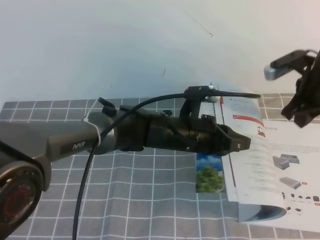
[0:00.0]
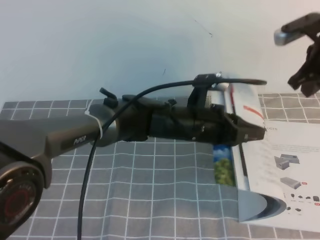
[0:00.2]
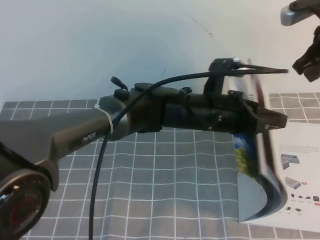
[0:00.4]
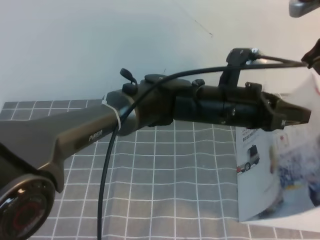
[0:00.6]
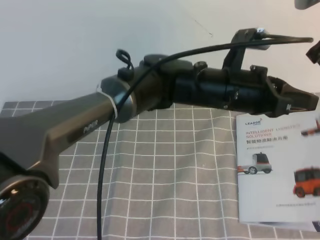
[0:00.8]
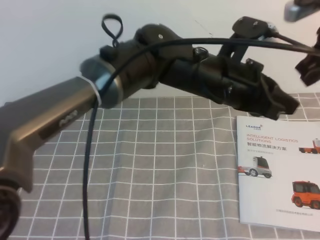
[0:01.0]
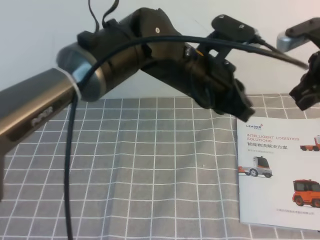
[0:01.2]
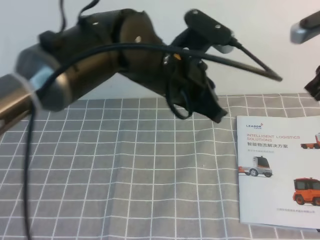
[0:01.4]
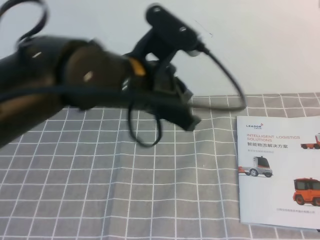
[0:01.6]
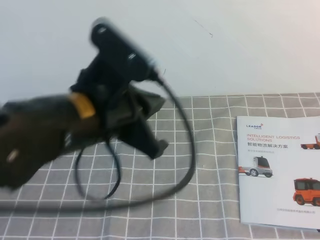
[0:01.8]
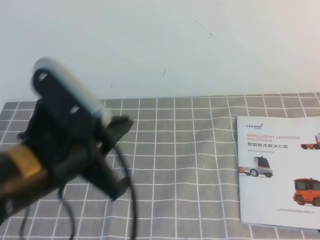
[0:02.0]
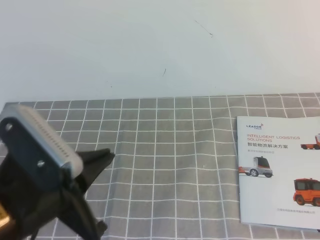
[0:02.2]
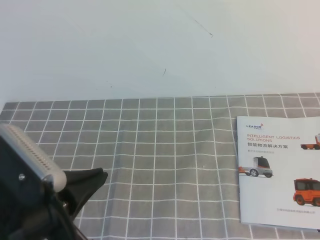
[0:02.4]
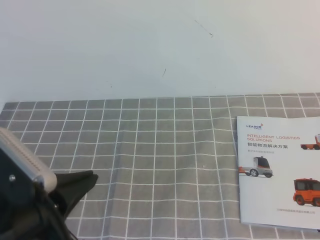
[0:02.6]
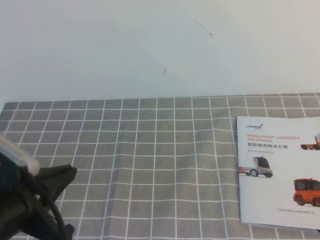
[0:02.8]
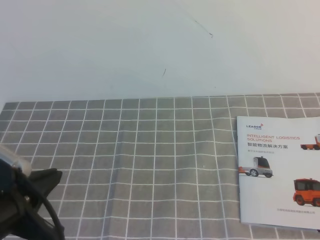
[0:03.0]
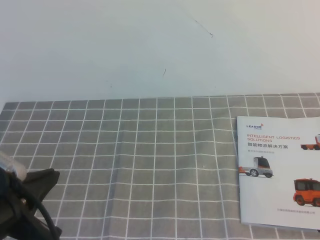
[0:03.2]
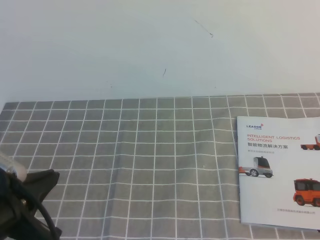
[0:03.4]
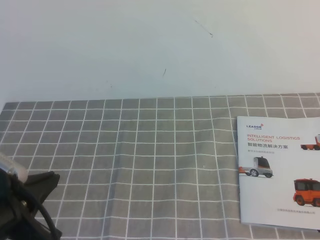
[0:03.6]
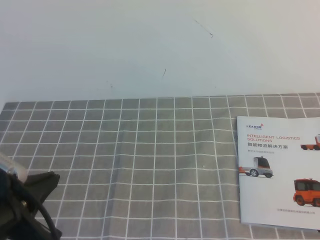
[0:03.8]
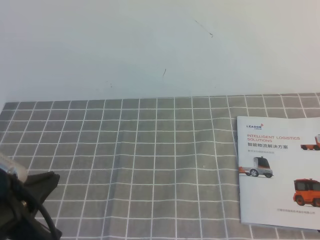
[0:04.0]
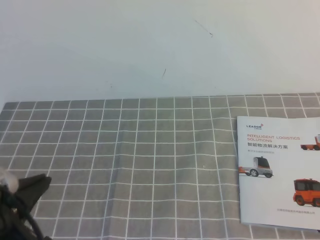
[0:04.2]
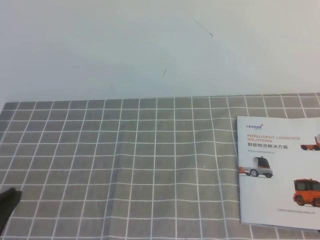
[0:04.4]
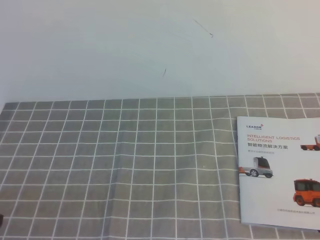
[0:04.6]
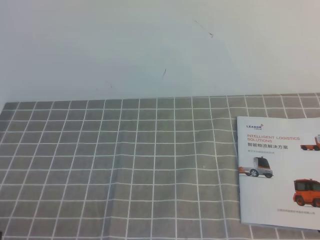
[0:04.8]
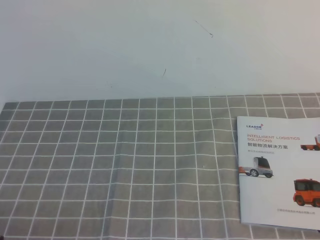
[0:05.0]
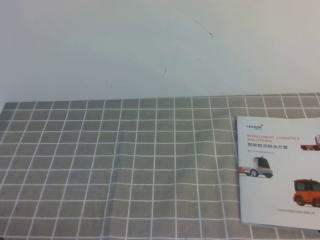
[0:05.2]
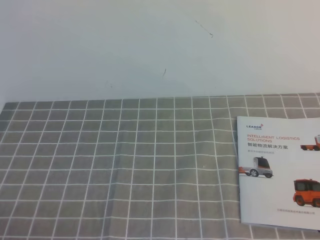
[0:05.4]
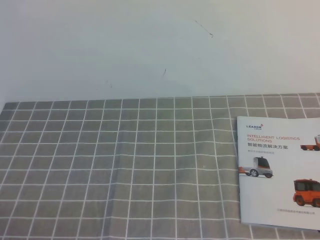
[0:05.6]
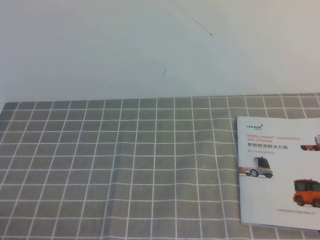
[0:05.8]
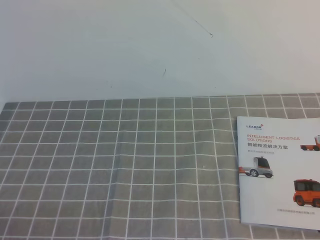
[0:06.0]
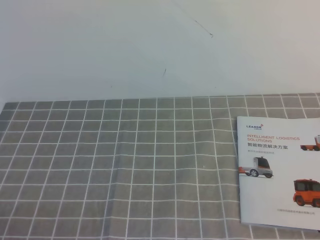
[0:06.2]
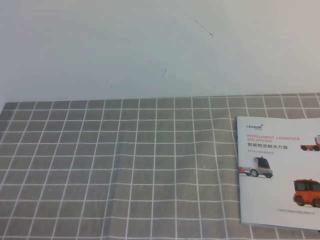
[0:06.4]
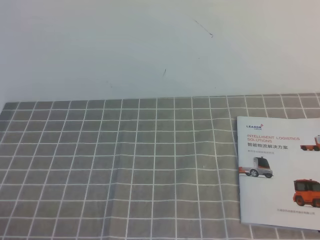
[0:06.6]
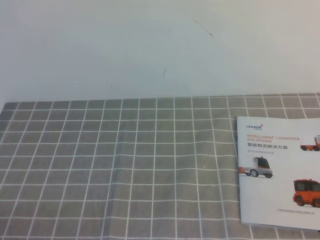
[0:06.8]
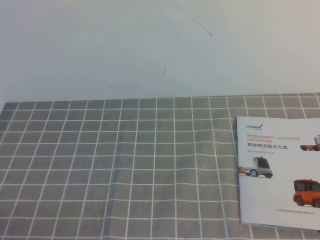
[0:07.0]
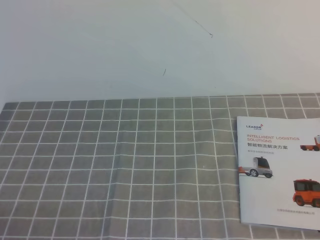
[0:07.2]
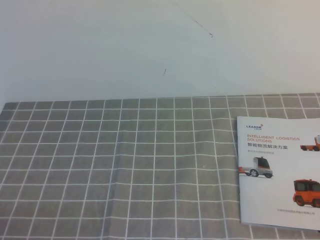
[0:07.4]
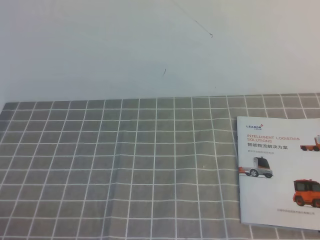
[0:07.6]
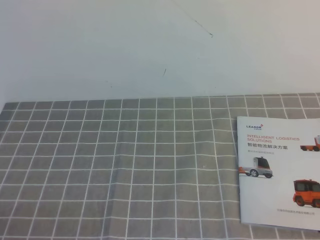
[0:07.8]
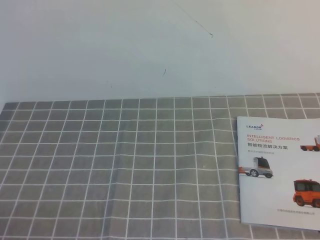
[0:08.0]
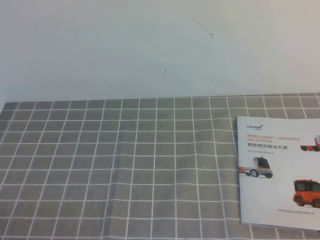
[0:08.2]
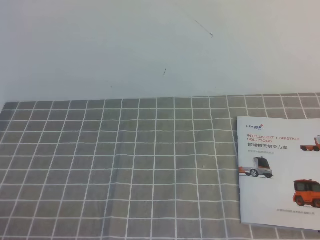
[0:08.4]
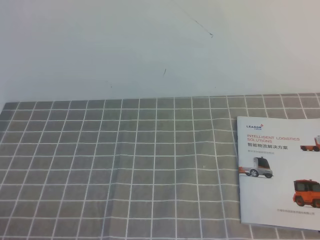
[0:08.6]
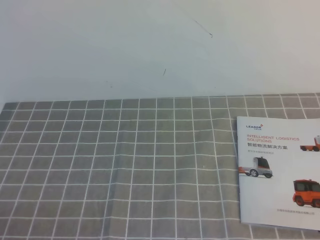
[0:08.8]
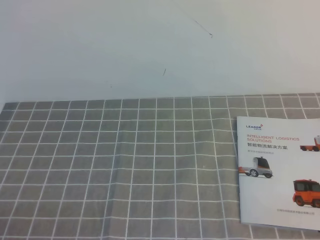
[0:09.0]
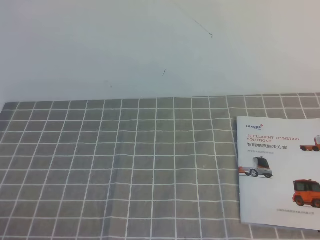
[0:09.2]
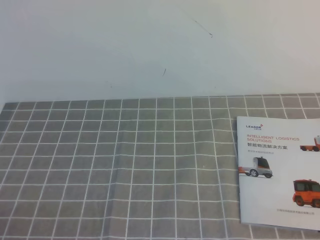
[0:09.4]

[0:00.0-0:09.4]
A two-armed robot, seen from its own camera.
Task of the whole recording: on the grey tablecloth, hold the book with one hand and close it with the other.
Step, 0:00.0 to 0:09.4: Close the open book.
0:00.0 to 0:01.6: The right gripper heads upward and backward, covering approximately 20 cm, while the left gripper travels upward, to the left and backward by approximately 20 cm.
0:01.6 to 0:03.2: The left gripper goes approximately 25 cm to the left, backward and downward, while the right gripper is displaced backward by some 30 cm.
0:03.2 to 0:04.8: The left gripper is displaced downward and backward by approximately 10 cm.
0:07.8 to 0:09.4: Both grippers stay put.
